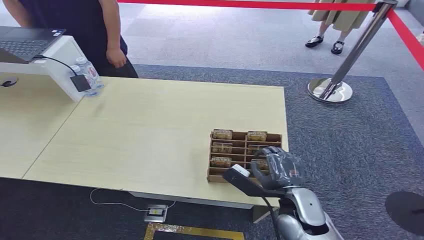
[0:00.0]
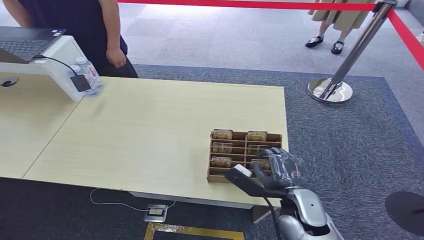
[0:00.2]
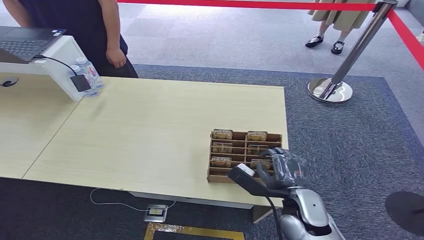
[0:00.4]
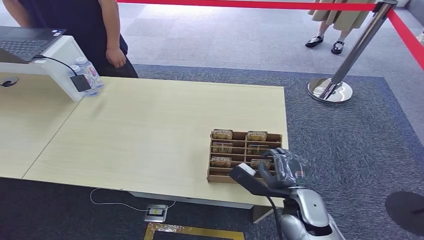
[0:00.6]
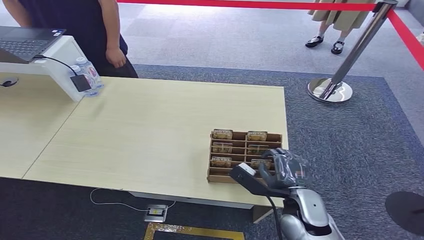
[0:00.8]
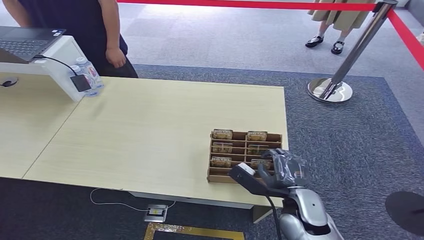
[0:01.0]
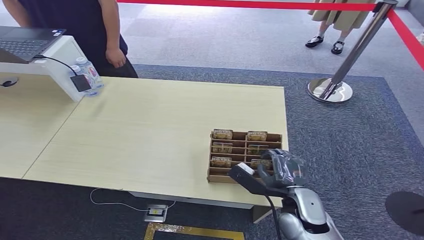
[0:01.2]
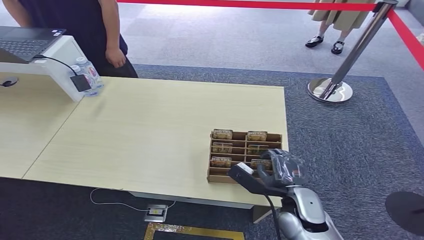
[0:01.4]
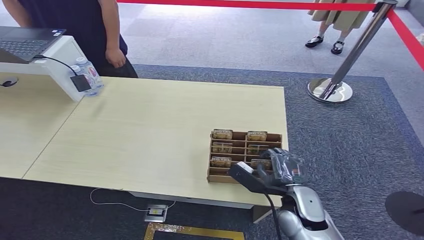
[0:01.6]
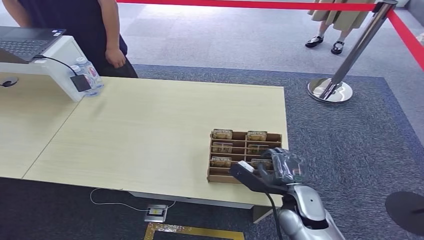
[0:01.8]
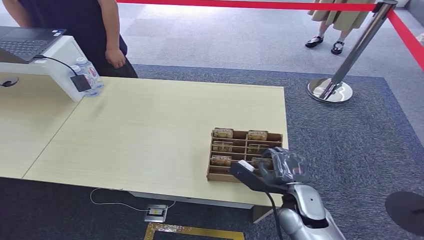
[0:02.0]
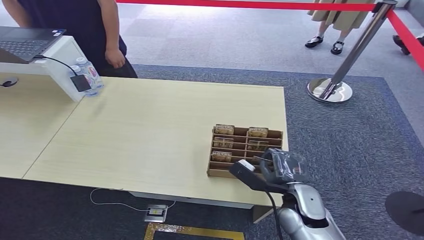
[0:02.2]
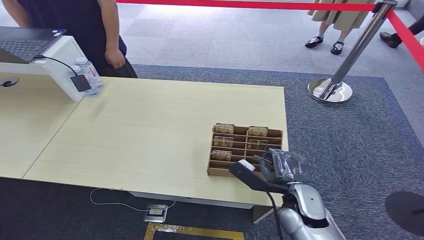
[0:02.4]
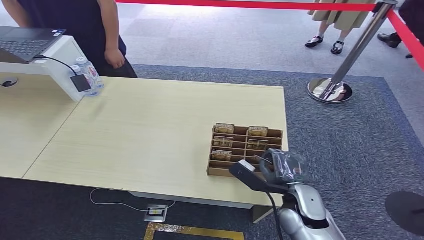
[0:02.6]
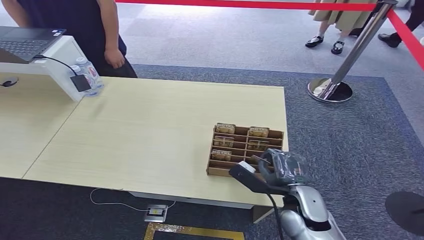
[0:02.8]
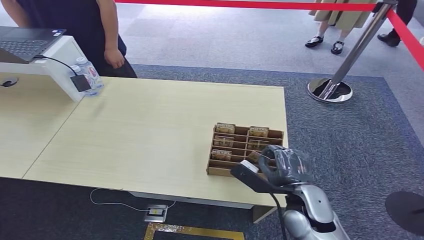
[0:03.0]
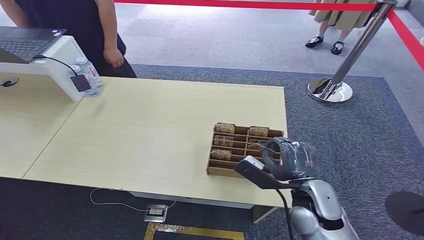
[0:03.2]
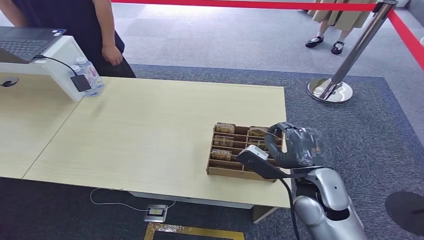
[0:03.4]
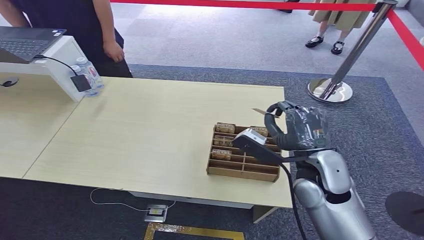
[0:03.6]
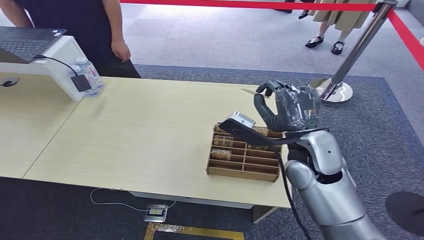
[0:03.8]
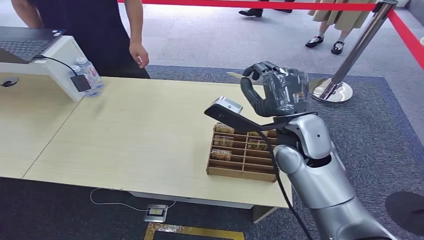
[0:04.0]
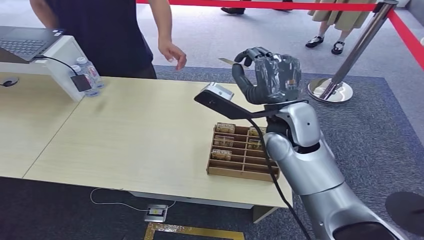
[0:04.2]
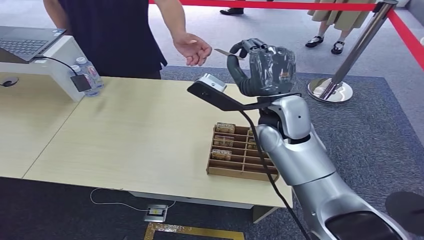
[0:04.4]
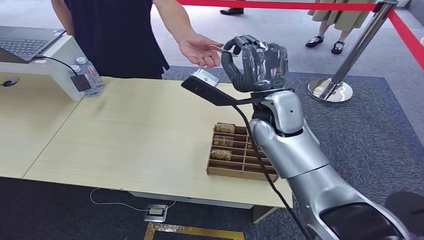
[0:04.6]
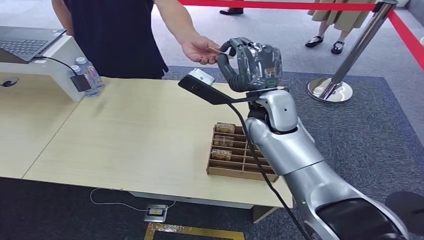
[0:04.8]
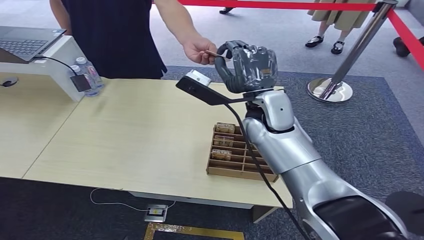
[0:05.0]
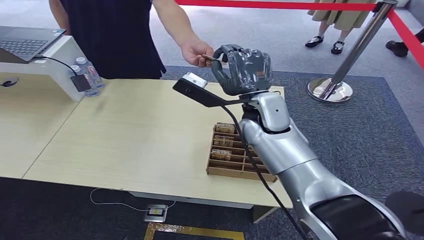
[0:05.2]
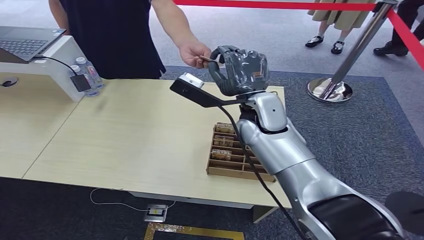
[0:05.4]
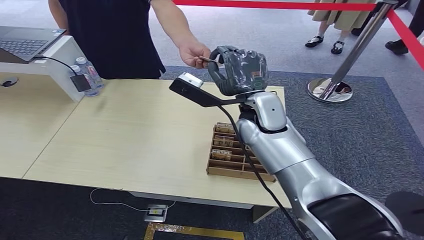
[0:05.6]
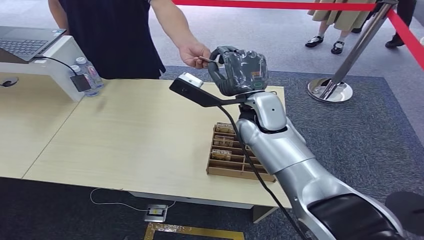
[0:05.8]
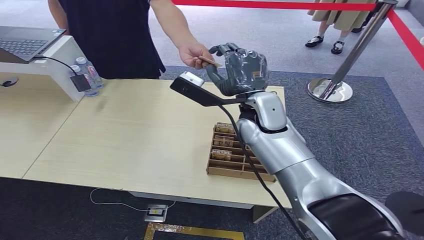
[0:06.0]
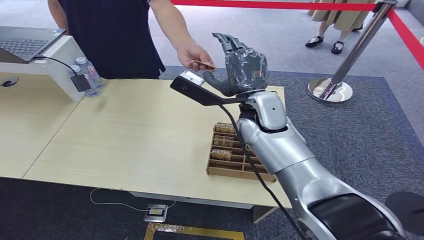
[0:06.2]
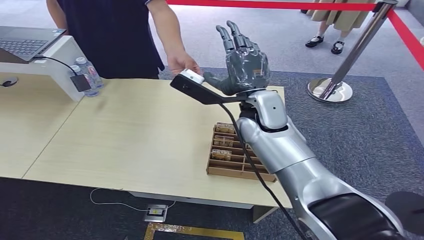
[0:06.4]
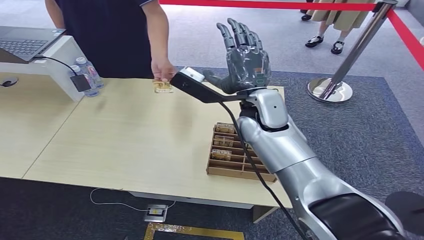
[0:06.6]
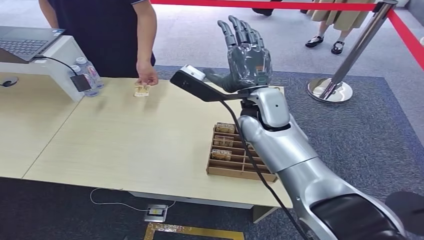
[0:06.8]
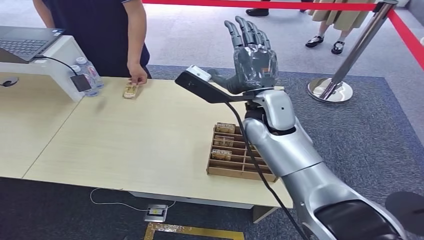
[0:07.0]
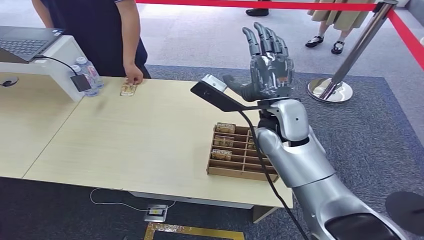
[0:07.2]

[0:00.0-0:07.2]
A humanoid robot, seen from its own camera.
Step, 0:00.0 to 0:03.4: Pick up the room card from the card holder.
Step, 0:03.6 to 0:07.2: Hand the room card to the target.
0:01.4 to 0:02.8: Both hands stay about where they are.
0:04.4 to 0:05.8: The hands stay close to where they were, moving slightly.
